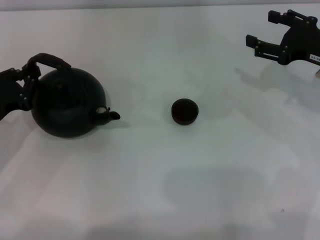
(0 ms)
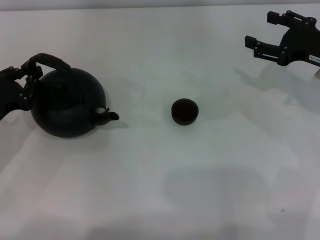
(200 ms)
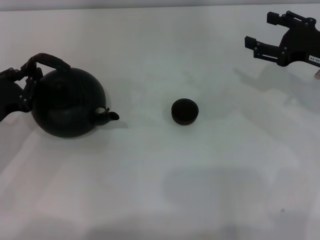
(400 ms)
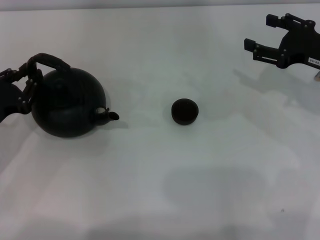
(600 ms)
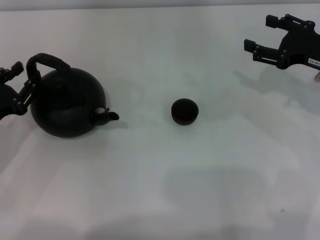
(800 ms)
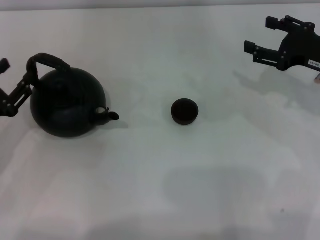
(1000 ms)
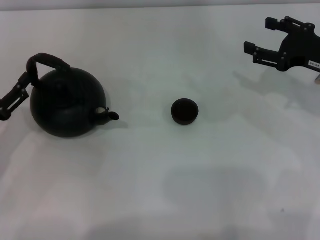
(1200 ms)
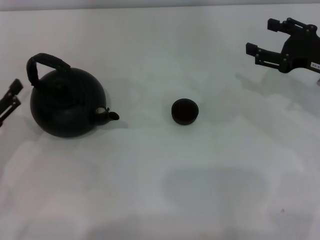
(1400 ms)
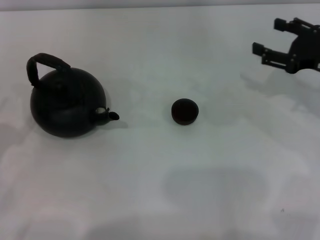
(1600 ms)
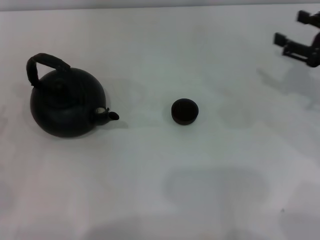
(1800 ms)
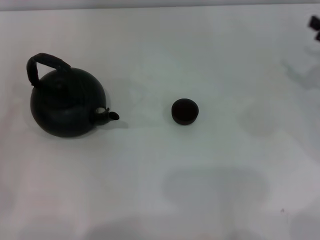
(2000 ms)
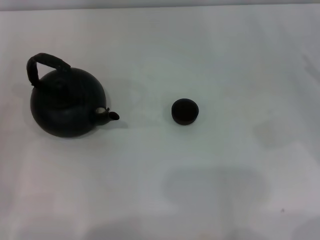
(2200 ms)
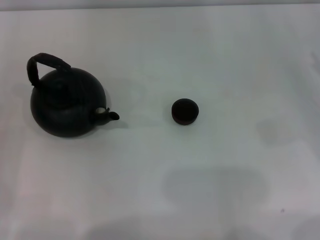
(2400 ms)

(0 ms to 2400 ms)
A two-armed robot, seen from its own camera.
Task of the whole recording: Grasp the handle of the teapot with one hand and pour tea into the teacup.
0 ms - 1200 ms: The left gripper opens up.
1200 ms - 2400 ms: The left gripper is displaced backward and to the left by approximately 10 cm; the right gripper goes about 10 cm to the right.
